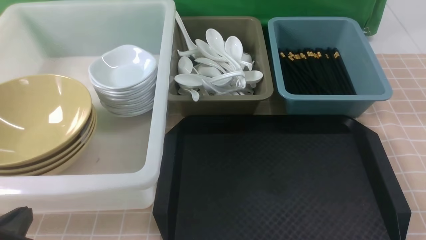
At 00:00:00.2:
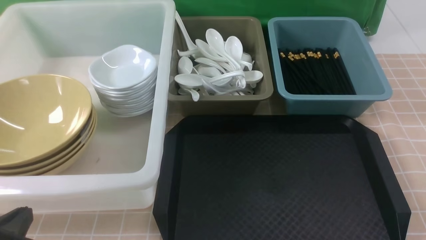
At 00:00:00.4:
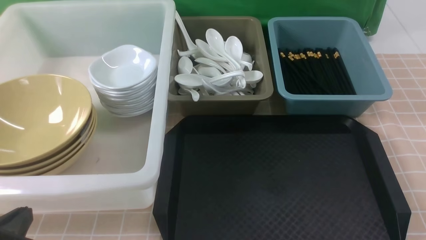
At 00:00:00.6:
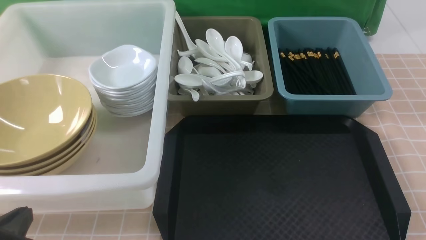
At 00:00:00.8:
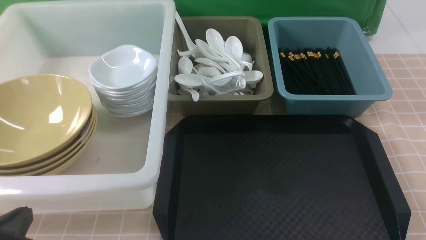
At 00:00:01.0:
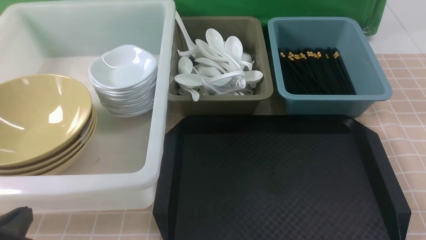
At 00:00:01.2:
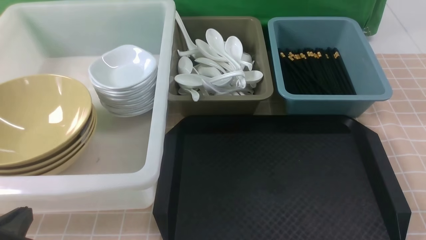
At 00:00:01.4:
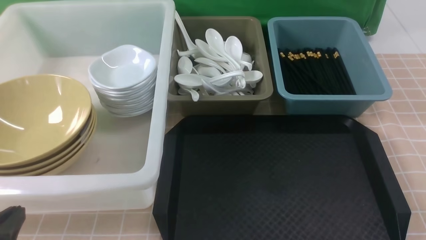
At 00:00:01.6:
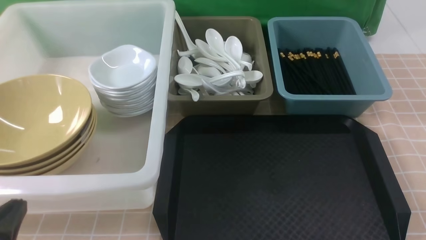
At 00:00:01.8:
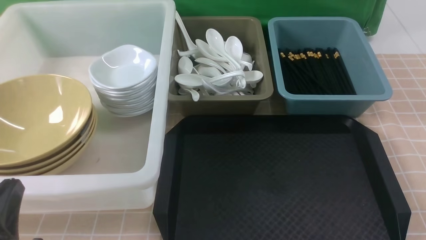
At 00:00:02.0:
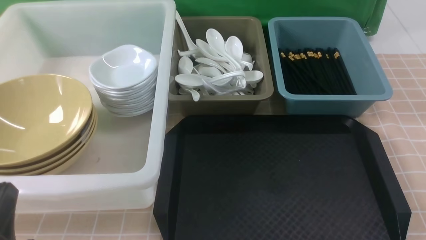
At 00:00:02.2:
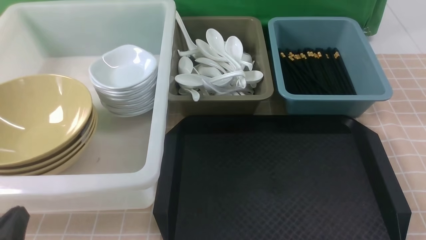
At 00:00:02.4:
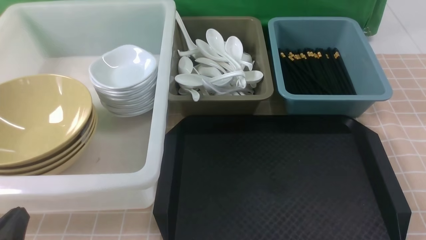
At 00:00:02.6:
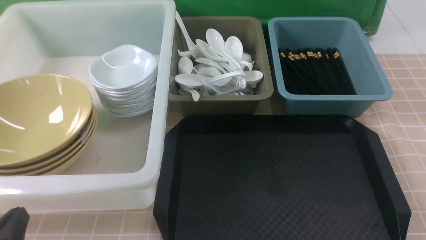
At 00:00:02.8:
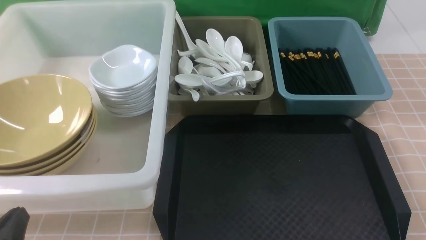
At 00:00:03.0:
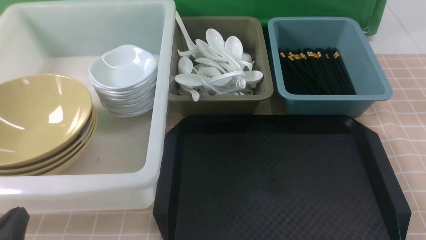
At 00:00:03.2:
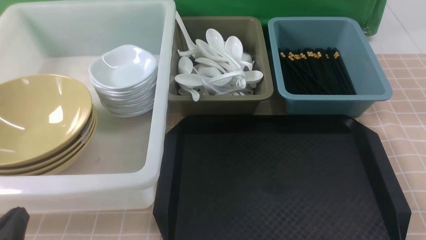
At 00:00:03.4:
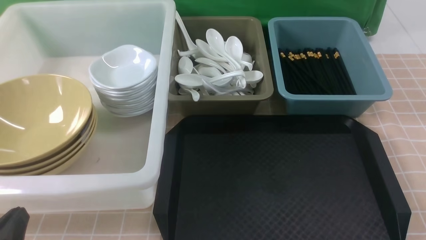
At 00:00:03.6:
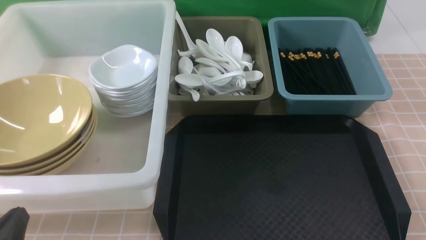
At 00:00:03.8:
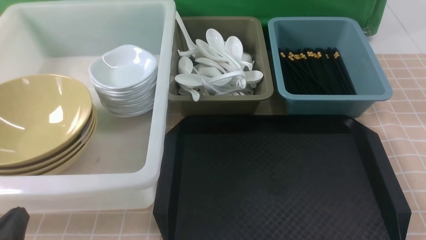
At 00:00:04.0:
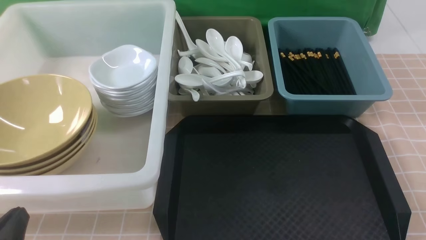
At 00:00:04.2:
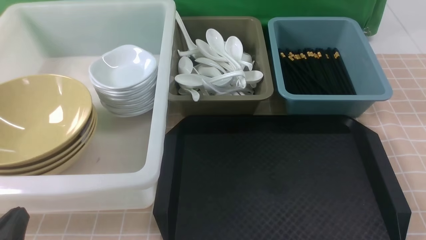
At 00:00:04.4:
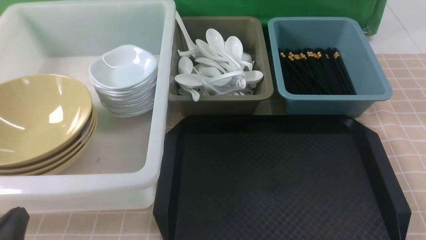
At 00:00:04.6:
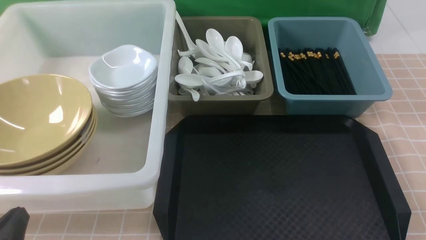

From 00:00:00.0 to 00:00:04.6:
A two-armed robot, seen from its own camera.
Task of the whole recording: on brown table put chopsticks spoon bowls plates into blue grey white boxes.
From 00:00:03.0 to 00:00:04.6: Neither gripper changes place.

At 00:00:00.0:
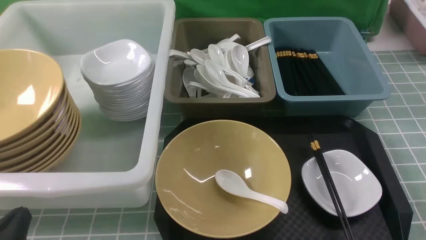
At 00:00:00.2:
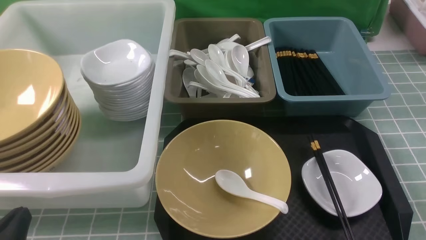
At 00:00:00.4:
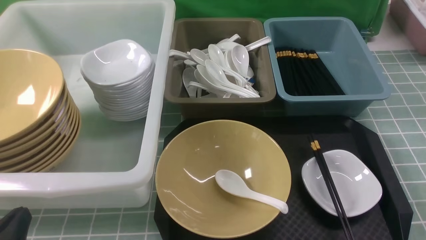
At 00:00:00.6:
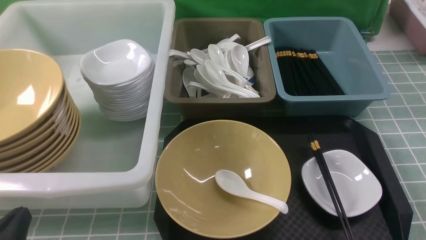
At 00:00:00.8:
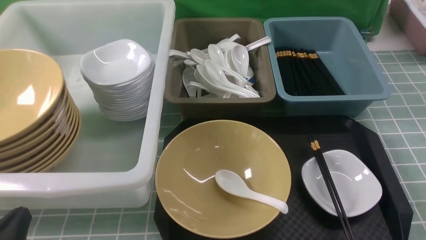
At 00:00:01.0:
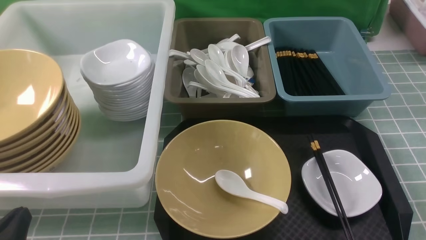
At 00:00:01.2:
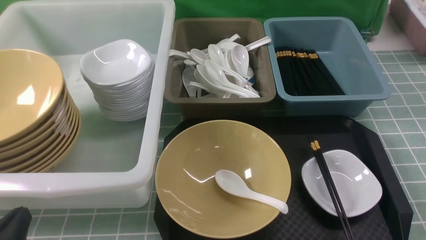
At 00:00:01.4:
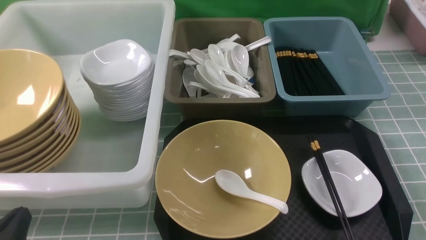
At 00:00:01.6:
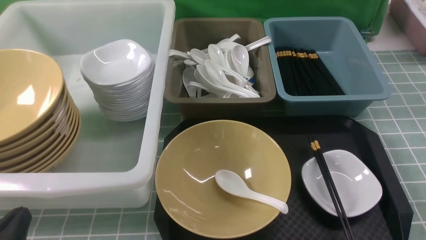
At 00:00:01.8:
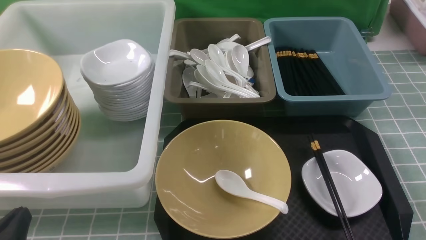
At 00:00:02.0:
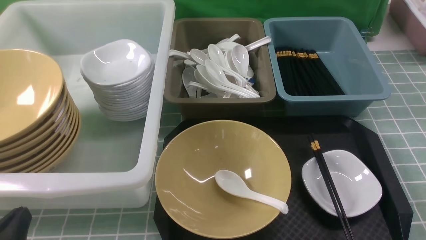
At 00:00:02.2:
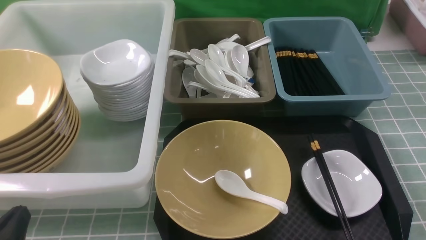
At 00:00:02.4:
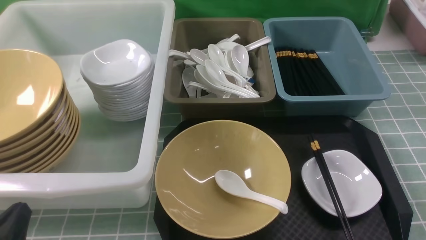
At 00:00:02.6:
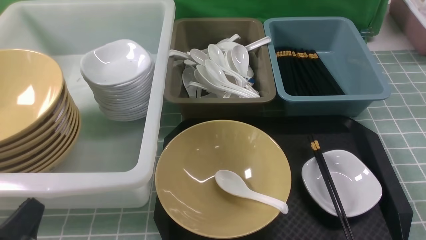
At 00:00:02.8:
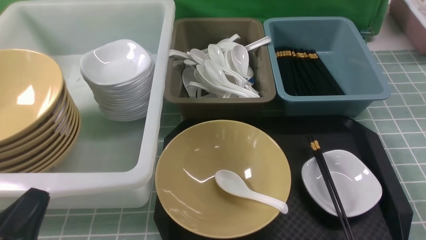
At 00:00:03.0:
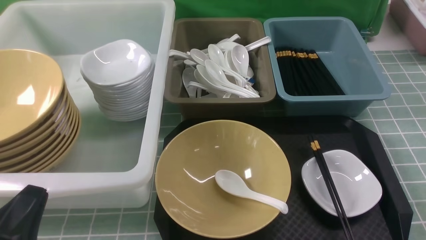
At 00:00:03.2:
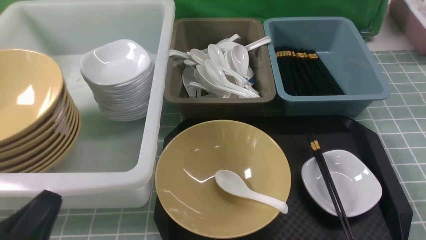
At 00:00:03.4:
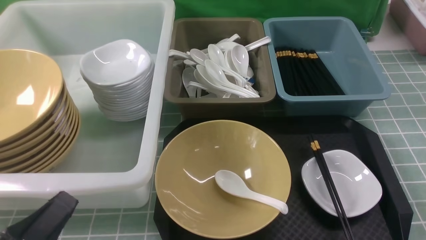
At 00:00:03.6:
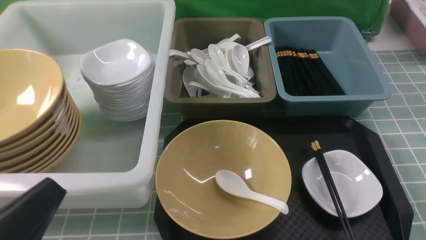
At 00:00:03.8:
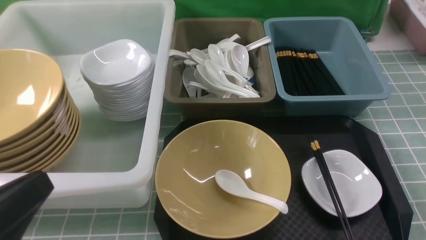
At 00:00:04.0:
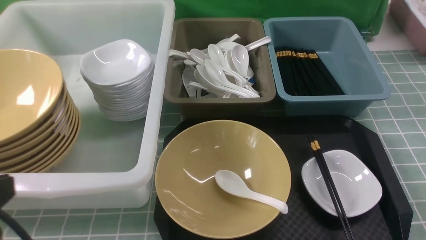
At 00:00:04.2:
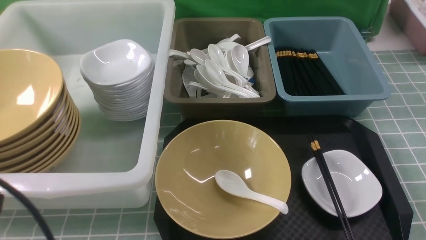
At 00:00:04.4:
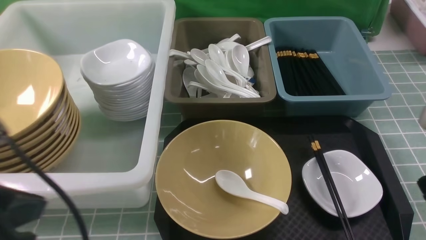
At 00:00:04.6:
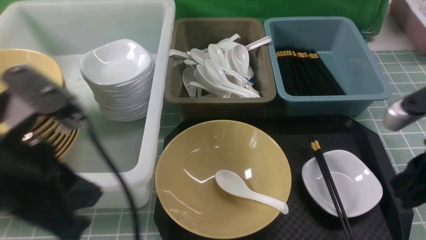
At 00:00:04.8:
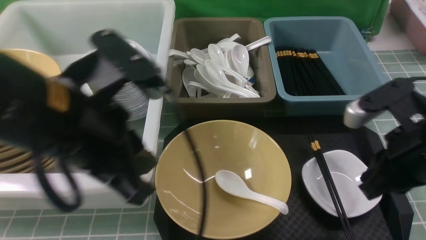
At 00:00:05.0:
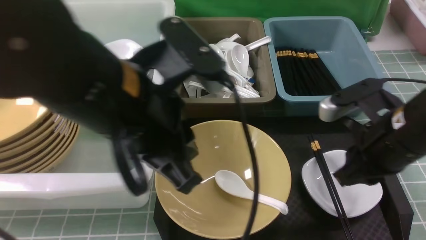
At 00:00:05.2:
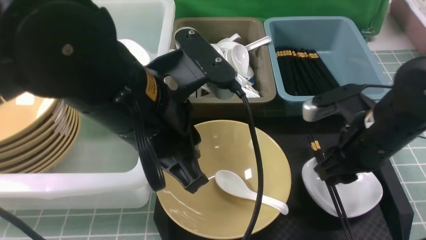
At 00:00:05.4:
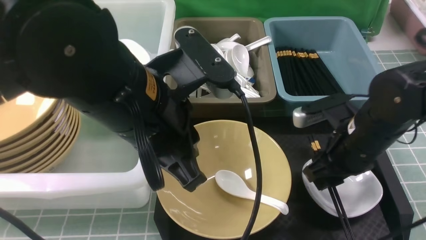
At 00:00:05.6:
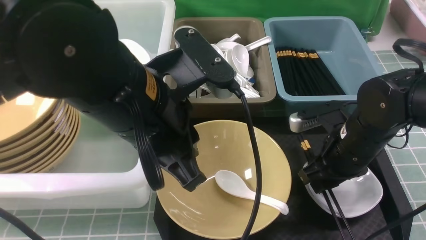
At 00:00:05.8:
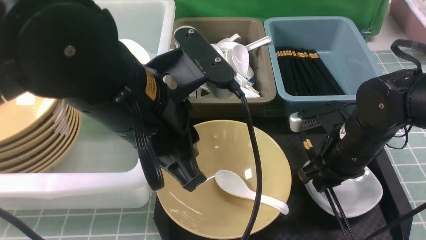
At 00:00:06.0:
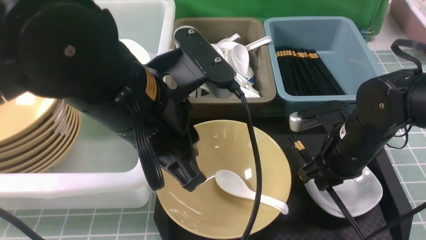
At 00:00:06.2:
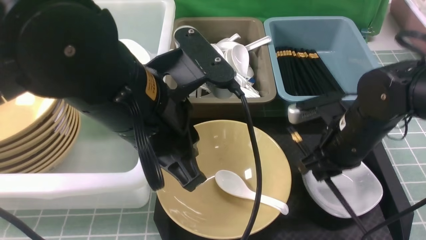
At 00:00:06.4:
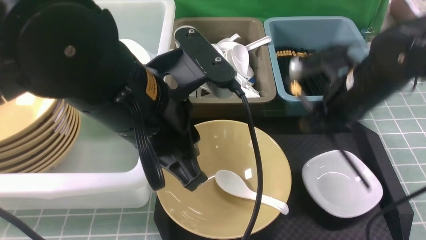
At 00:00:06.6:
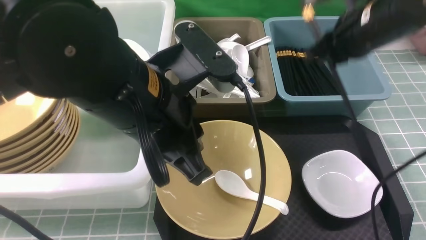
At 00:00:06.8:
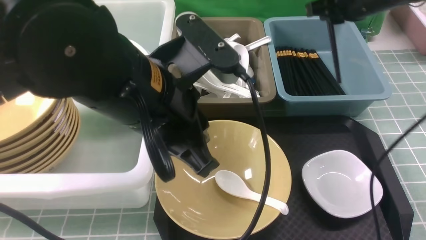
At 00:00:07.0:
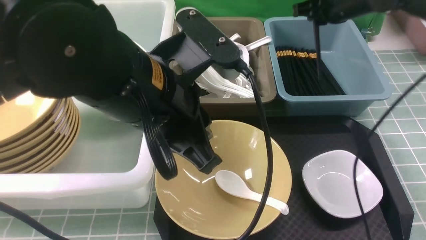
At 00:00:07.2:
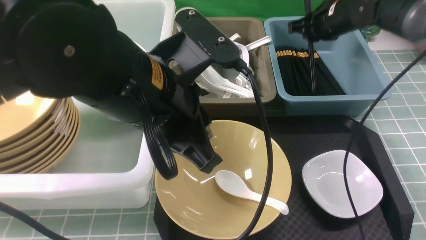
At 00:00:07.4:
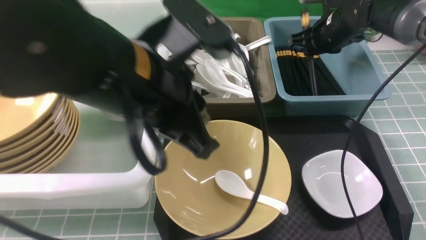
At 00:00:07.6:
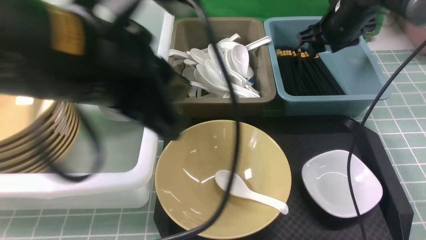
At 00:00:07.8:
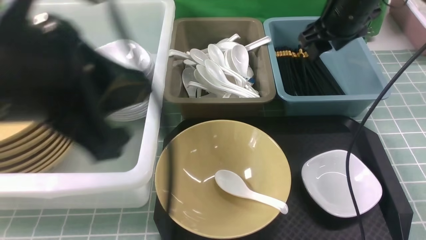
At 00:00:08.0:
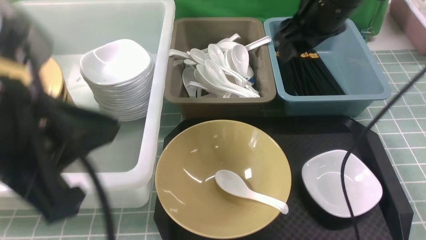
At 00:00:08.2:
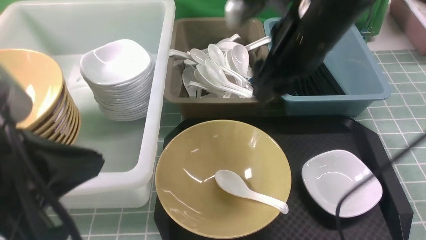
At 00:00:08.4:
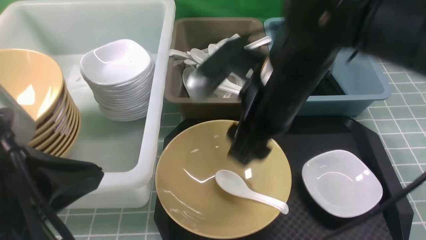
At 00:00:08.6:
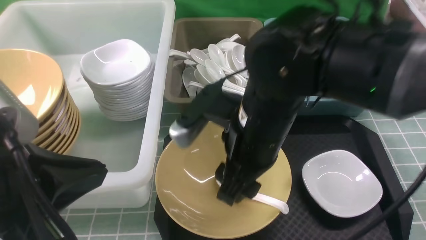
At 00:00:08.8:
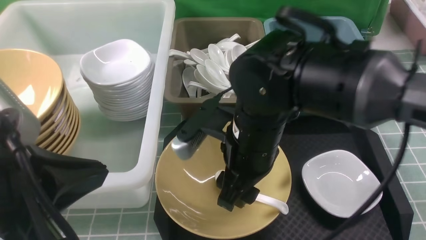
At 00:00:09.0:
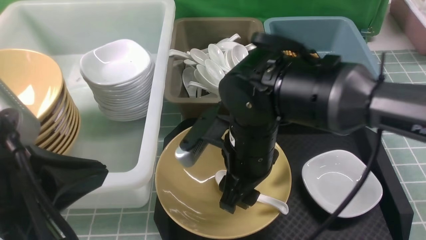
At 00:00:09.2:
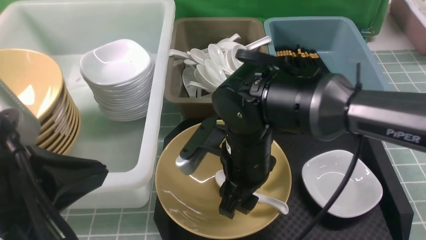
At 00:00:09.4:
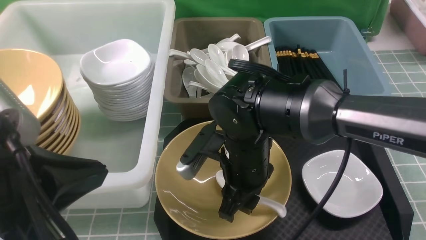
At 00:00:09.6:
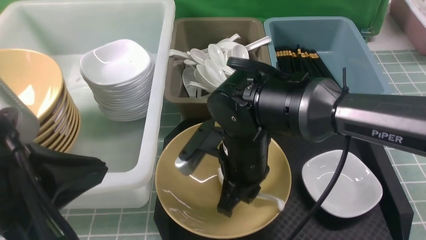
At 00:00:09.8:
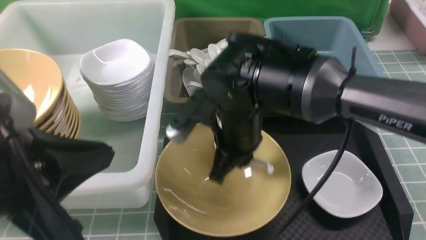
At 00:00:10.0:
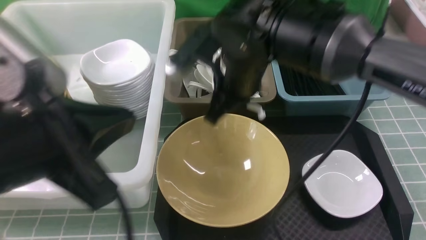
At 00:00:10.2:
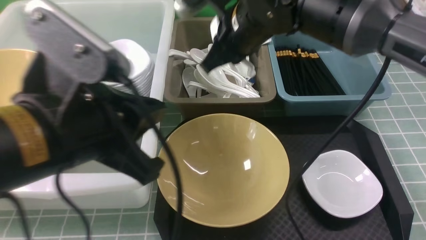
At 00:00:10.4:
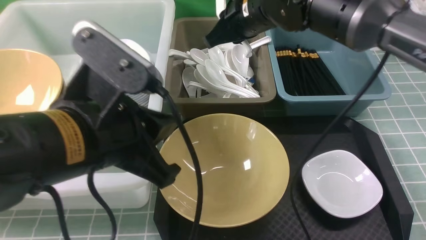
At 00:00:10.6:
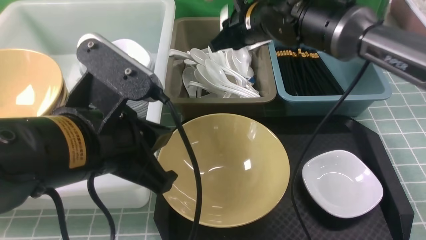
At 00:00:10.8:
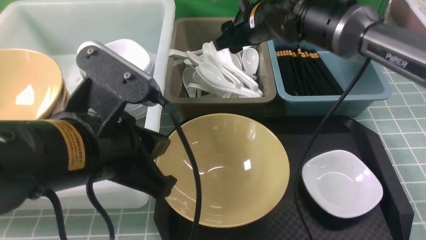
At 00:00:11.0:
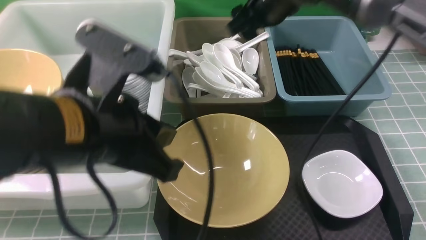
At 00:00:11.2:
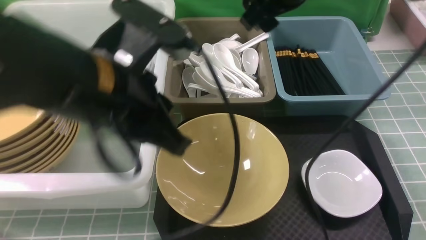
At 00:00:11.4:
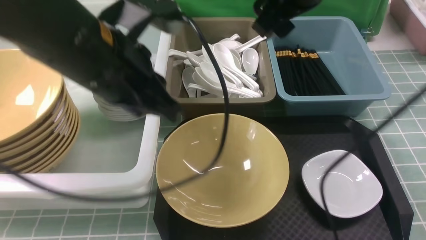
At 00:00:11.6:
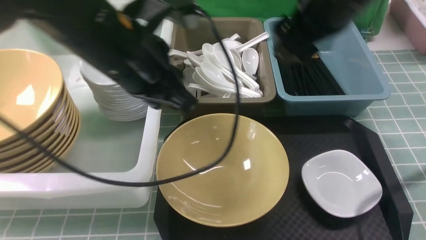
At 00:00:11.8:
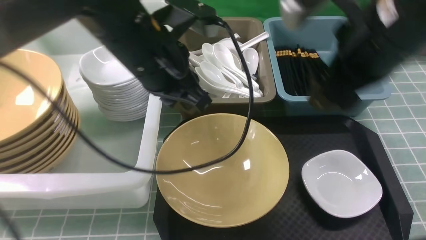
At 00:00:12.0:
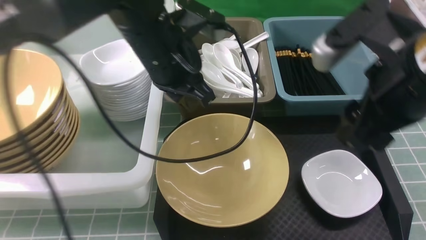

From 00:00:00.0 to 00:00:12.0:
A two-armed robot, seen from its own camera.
Task of the whole recording: on blue table put chopsticks spoon bowls plates into blue grey white boxes.
Step, from 00:00:00.0 to 00:00:06.2: use the right arm to grab the chopsticks.
Step, from 00:00:06.4 to 00:00:07.6: use the right arm to put the chopsticks into the small storage box on the right.
Step, from 00:00:07.8 to 00:00:09.6: use the right arm to grab the soup spoon in the middle.
Step, from 00:00:09.8 to 00:00:11.0: use the right arm to put the soup spoon into the small storage box in the middle.
From 00:00:00.0 to 00:00:01.6: Both grippers stay about where they are.
From 00:00:03.0 to 00:00:04.4: The right gripper moves upward and forward, approximately 15 cm, and closes; the left gripper moves upward, approximately 15 cm.
From 00:00:04.4 to 00:00:06.0: The left gripper heads to the right and forward, covering approximately 15 cm. Meanwhile the right gripper moves forward, downward and to the left, roughly 20 cm, and opens and closes again.
From 00:00:06.0 to 00:00:07.6: The right gripper moves forward and upward, some 20 cm, and opens up. The left gripper is displaced upward by some 5 cm.
From 00:00:07.6 to 00:00:09.0: The right gripper heads backward and to the left, covering some 25 cm; the left gripper heads to the left, backward and downward, covering about 10 cm.
From 00:00:09.0 to 00:00:10.4: The right gripper heads forward and upward, covering about 20 cm, and closes its fingers; the left gripper moves forward and to the right, roughly 10 cm.
From 00:00:10.4 to 00:00:12.0: The left gripper is displaced forward by roughly 15 cm, while the right gripper is displaced backward and to the right by approximately 25 cm, and opens up.
